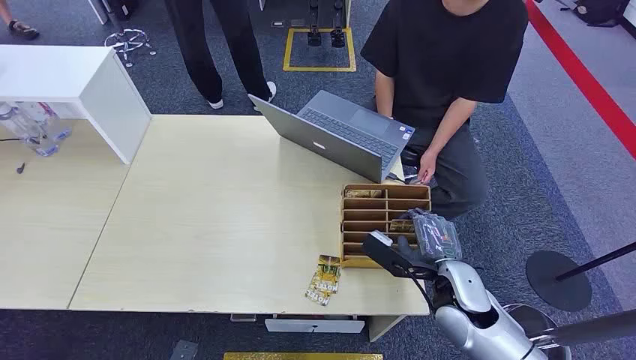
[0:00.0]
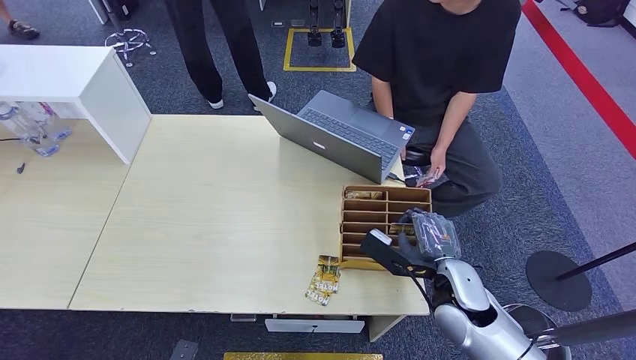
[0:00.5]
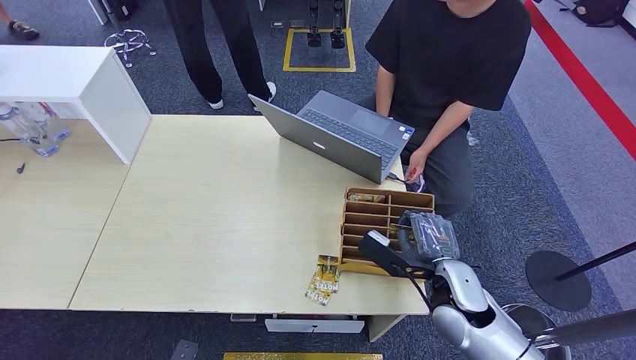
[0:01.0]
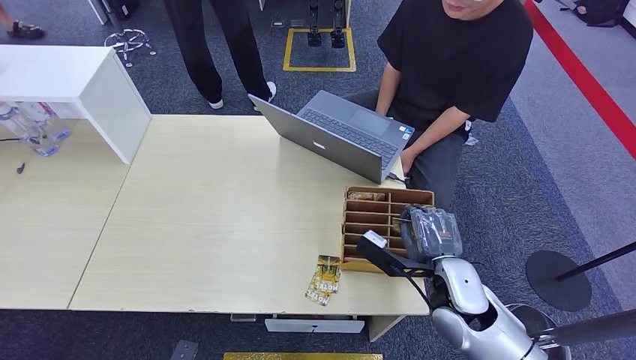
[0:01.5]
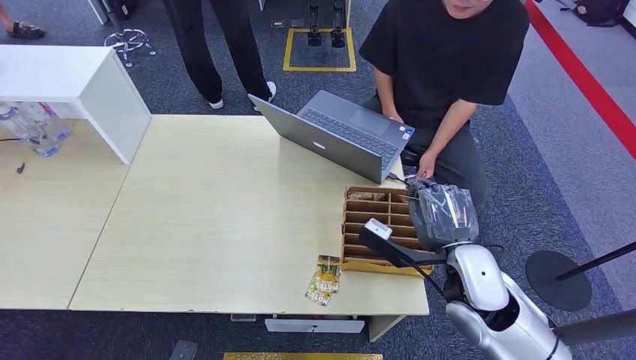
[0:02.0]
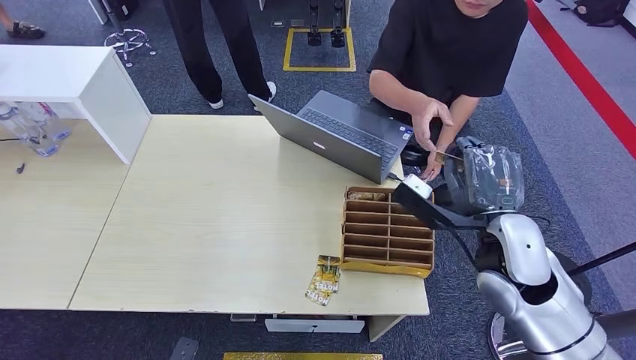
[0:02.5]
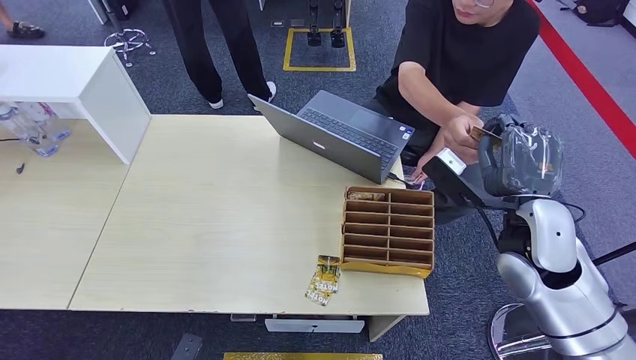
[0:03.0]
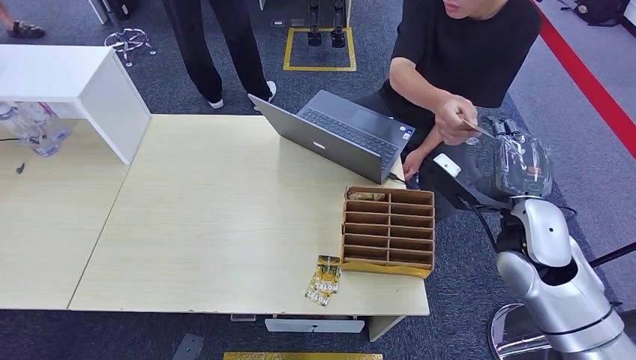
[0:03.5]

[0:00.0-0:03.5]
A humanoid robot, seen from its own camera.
Step, 0:00.0 to 0:02.0: Pick up the key card from the card box.
Step, 0:02.5 to 0:03.5: Hand the key card to the target.
0:02.0 to 0:03.5: The right hand shifts some 10 cm to the right and upward.

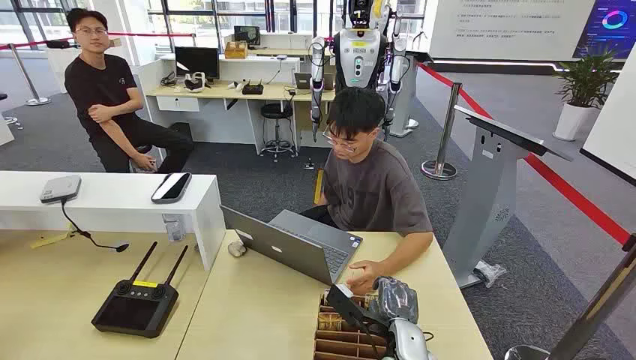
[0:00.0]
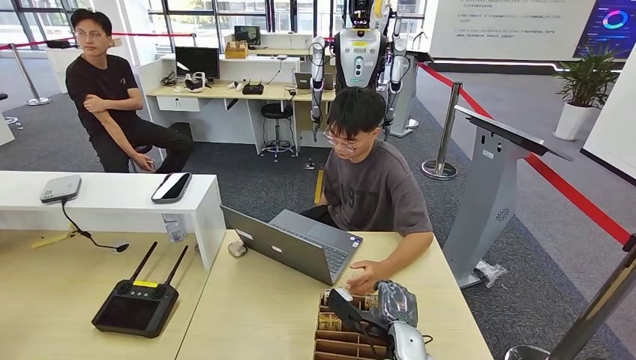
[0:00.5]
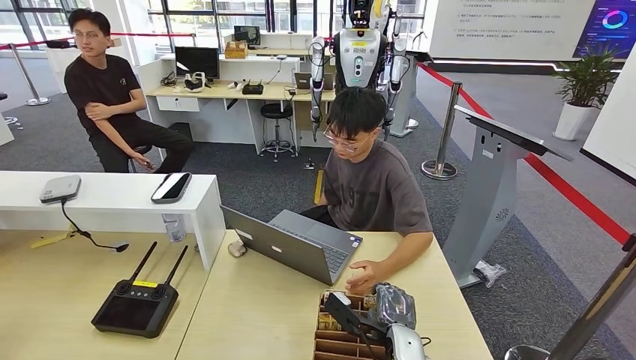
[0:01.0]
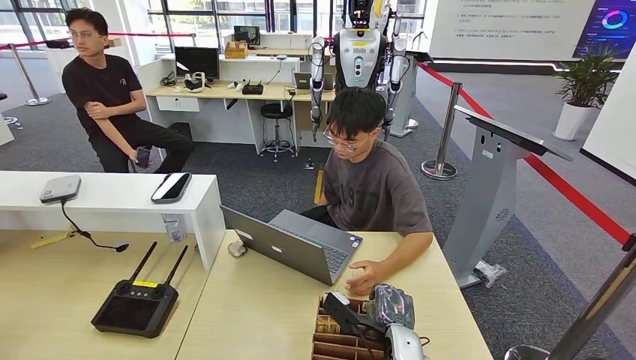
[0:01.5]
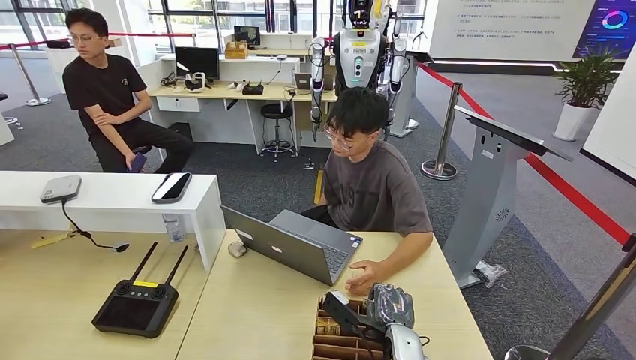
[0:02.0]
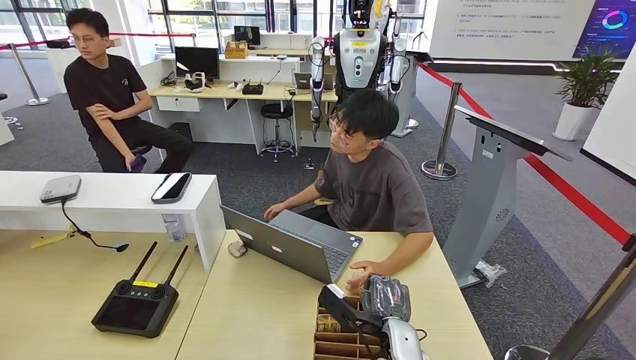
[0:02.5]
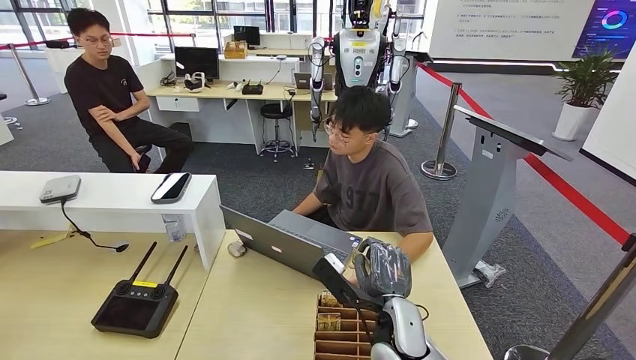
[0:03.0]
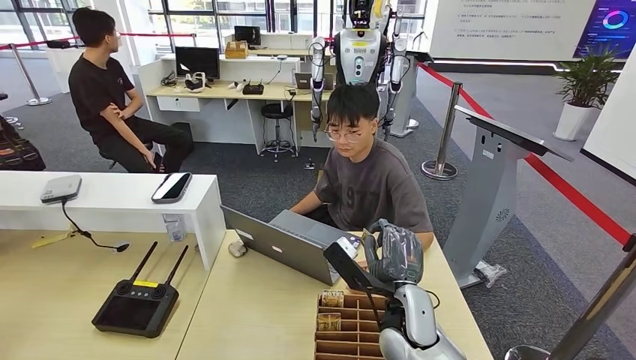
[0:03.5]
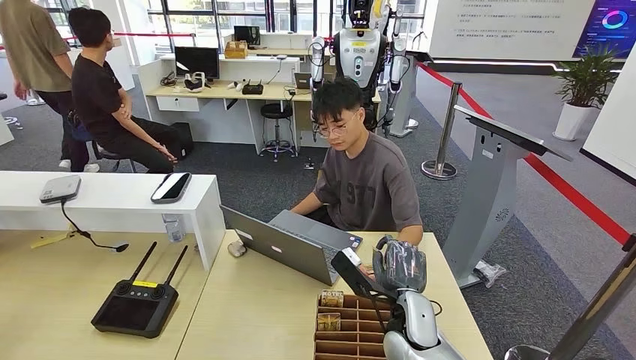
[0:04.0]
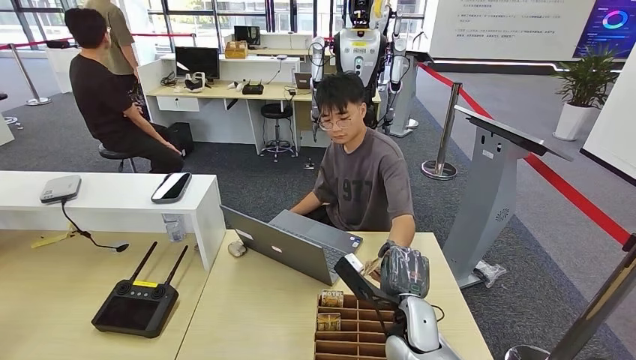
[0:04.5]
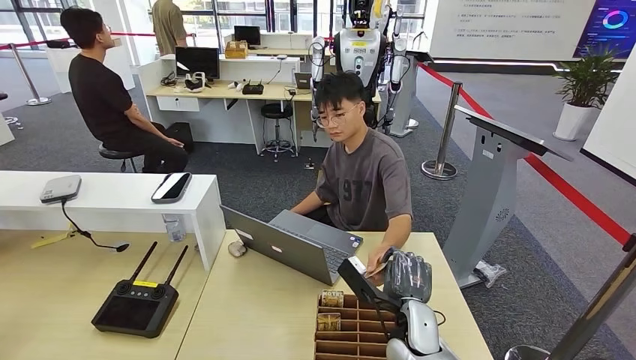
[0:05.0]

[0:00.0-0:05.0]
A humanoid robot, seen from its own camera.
Step, 0:00.0 to 0:02.5: Pick up the key card from the card box.
Step, 0:04.0 to 0:05.0: Hand the key card to the target.
0:02.5 to 0:05.0: The right hand reaches roughly 10 cm upward, then returns.
